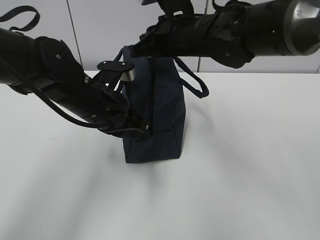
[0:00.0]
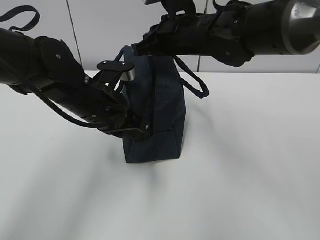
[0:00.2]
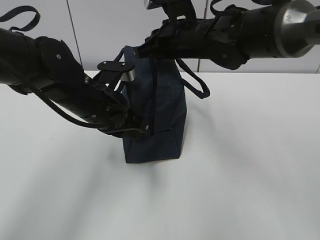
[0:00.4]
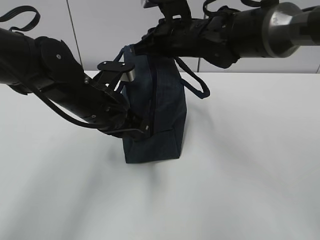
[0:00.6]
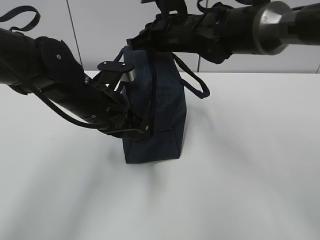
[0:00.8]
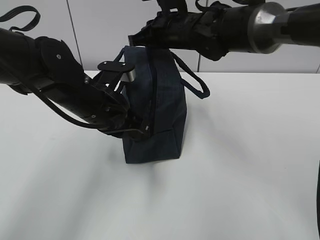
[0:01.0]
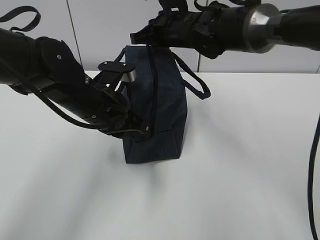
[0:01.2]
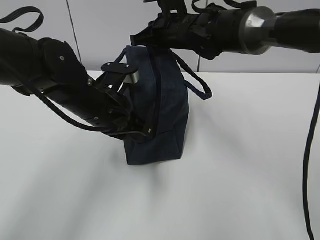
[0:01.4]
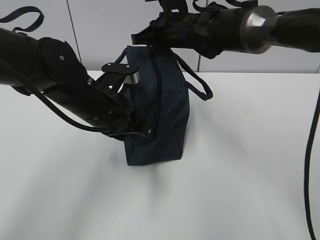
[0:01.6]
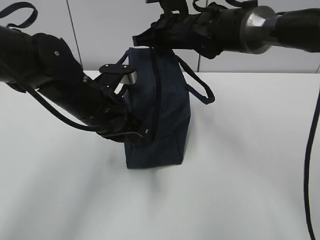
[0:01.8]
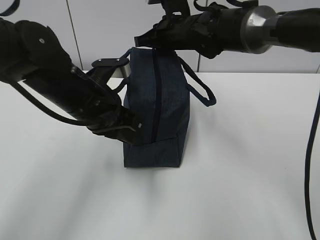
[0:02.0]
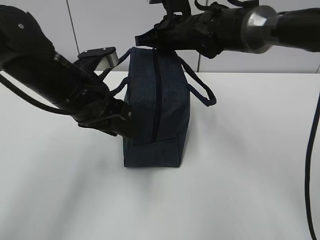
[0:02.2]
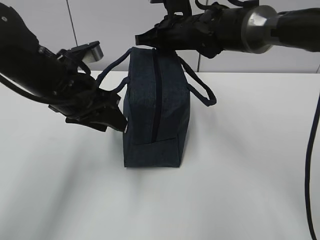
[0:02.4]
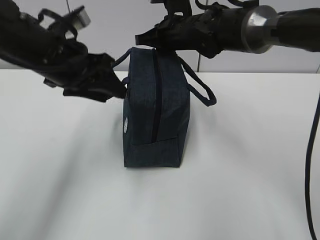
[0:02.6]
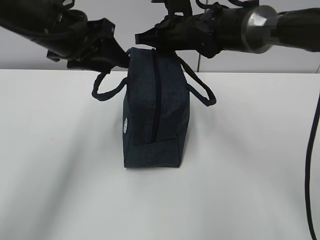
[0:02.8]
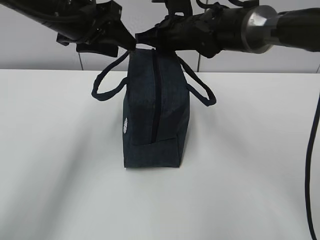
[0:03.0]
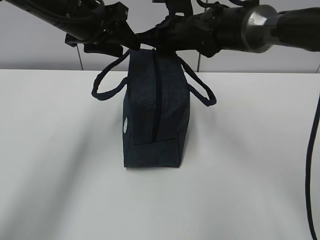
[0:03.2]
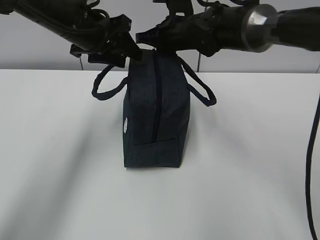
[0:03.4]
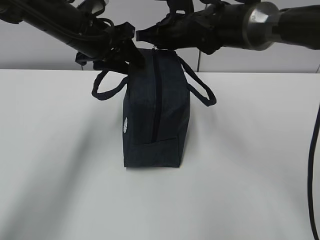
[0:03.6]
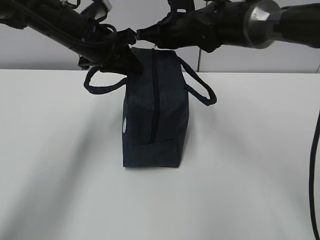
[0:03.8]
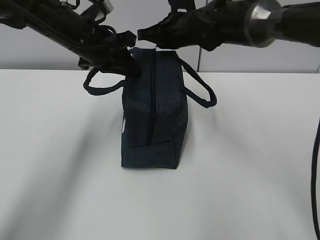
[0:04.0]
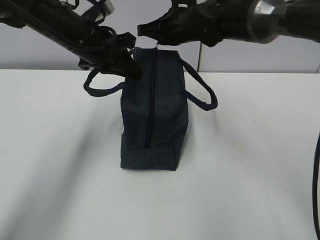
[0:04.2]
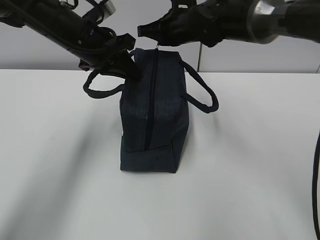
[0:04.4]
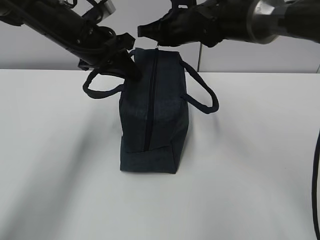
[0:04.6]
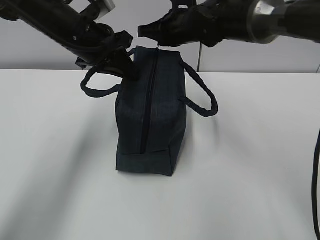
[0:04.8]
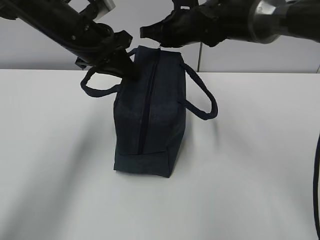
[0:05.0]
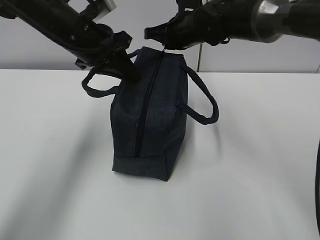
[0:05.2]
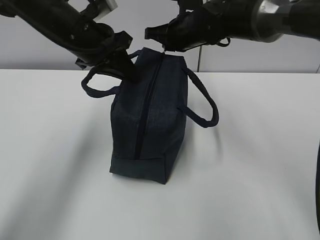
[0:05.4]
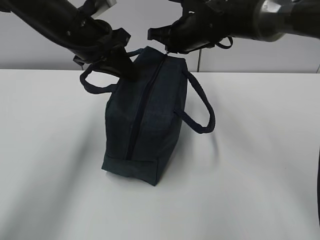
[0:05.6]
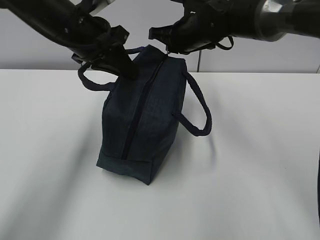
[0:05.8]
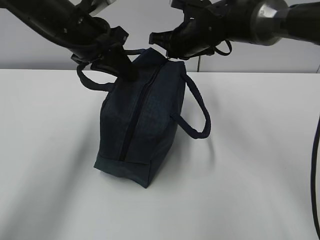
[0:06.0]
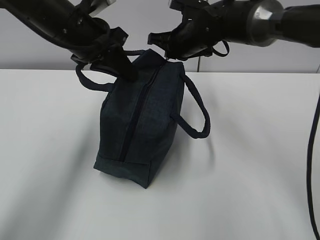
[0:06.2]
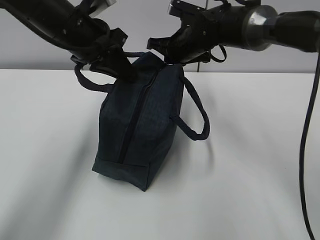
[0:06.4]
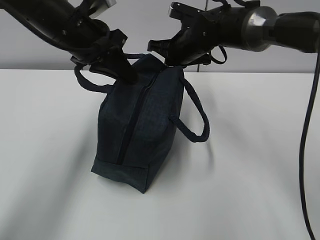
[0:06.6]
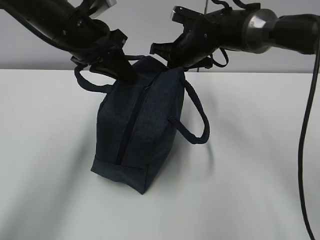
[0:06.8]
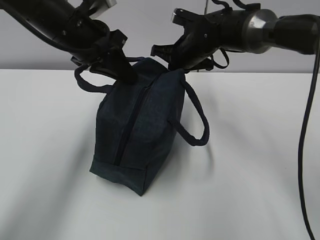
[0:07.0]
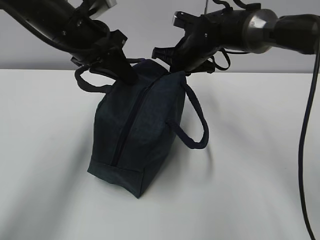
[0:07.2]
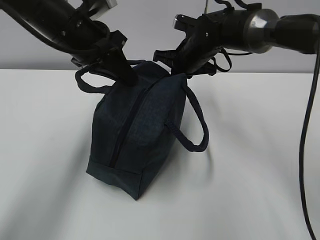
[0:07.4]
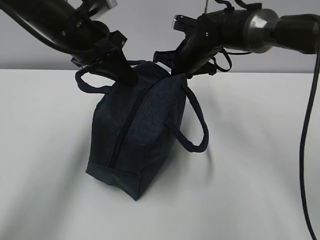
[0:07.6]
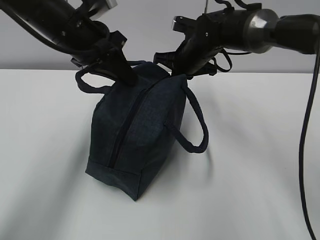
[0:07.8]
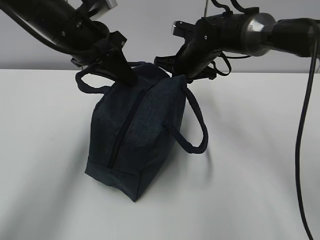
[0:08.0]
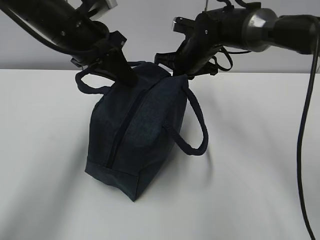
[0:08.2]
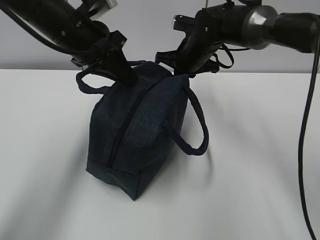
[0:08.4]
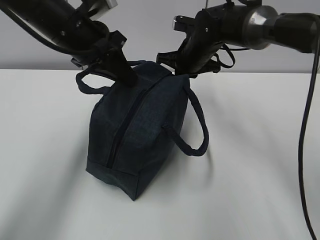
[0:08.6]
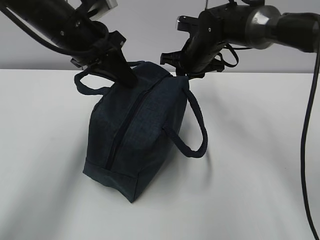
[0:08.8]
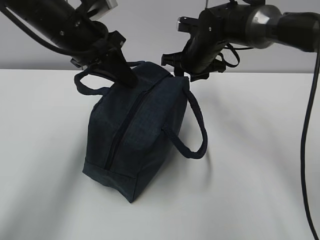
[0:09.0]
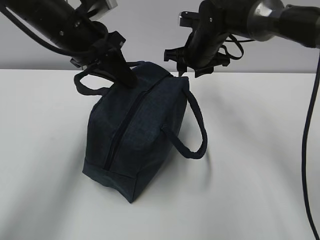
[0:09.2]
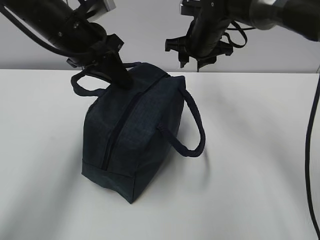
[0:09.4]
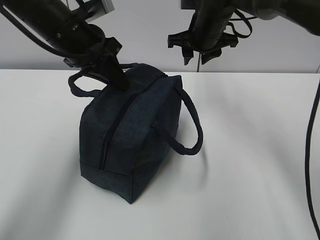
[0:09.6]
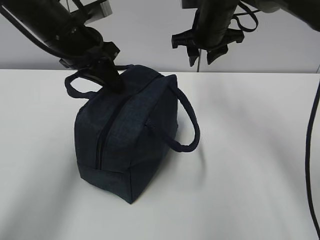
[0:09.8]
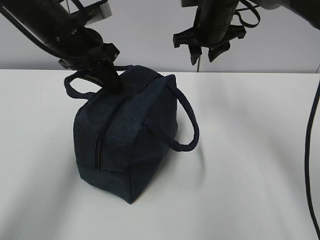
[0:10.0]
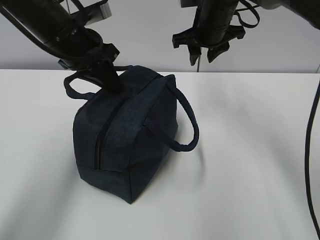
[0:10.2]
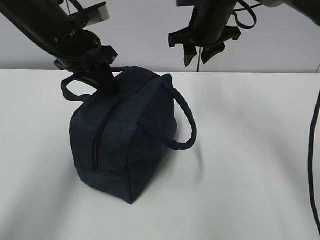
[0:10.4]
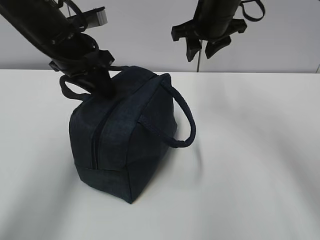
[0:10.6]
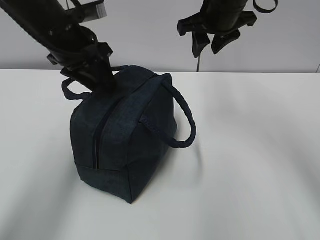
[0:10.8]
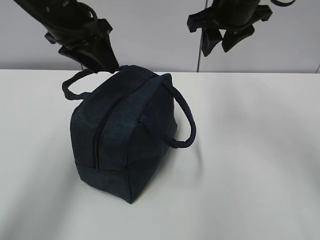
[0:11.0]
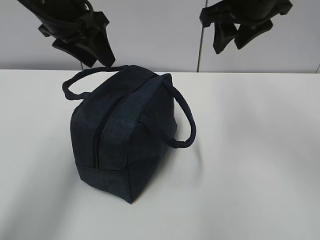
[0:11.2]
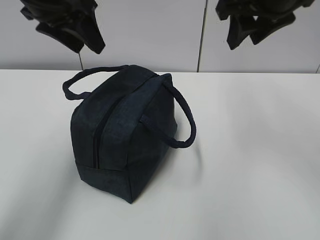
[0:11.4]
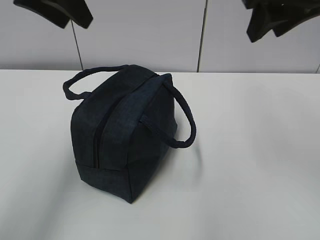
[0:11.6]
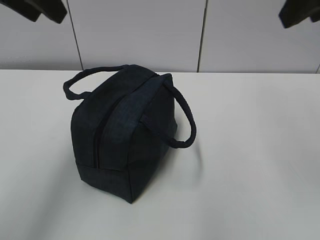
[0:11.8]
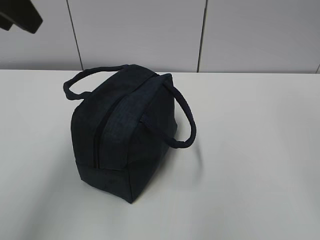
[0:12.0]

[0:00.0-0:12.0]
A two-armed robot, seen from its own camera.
0:00.0 to 0:01.6: The right gripper heads forward, covering roughly 10 cm.
0:01.6 to 0:03.0: The left gripper is displaced upward, forward and to the left by approximately 15 cm, and opens its fingers.
0:03.0 to 0:04.4: The left gripper is displaced downward by roughly 5 cm, and closes.
0:04.4 to 0:06.0: The grippers move only a little.
0:06.0 to 0:07.6: The grippers make only small movements.
0:07.6 to 0:09.0: The right gripper opens its fingers.
0:09.0 to 0:10.4: The right gripper goes about 10 cm upward.
0:10.4 to 0:12.0: The left gripper heads upward, backward and to the left, covering about 20 cm, and opens, while the right gripper travels backward and upward by approximately 35 cm.

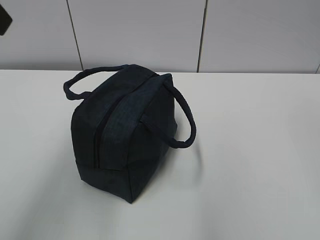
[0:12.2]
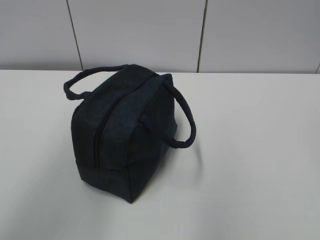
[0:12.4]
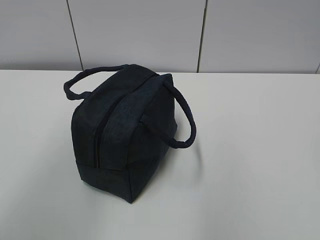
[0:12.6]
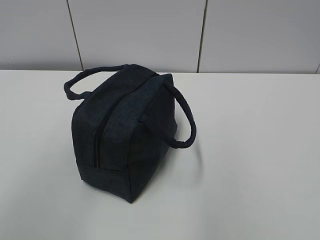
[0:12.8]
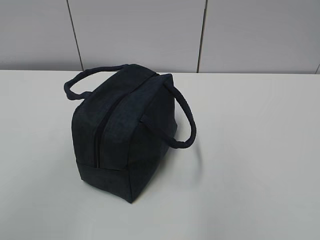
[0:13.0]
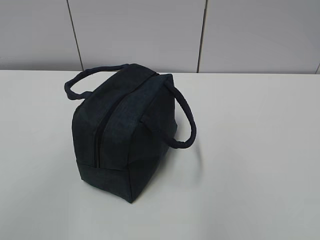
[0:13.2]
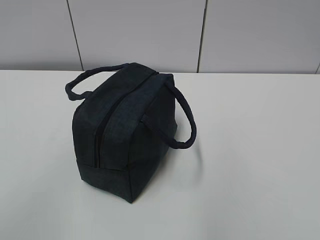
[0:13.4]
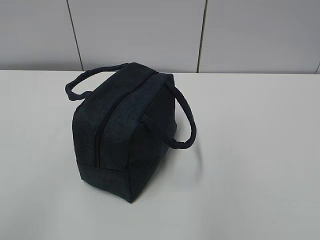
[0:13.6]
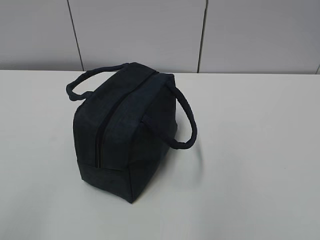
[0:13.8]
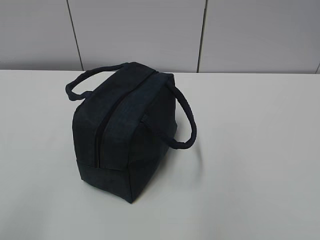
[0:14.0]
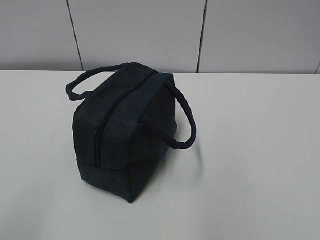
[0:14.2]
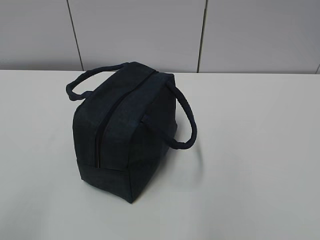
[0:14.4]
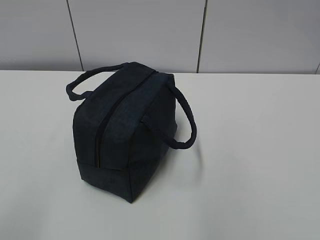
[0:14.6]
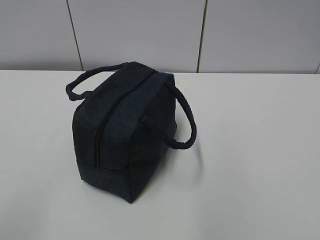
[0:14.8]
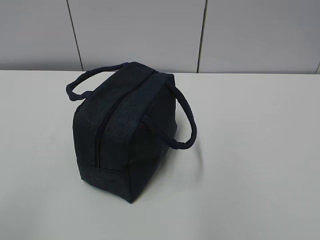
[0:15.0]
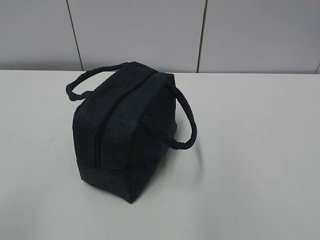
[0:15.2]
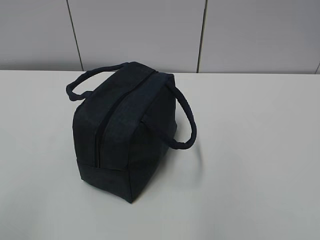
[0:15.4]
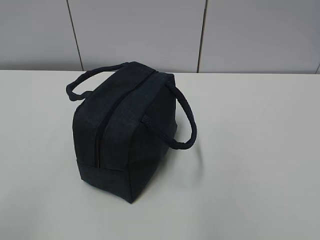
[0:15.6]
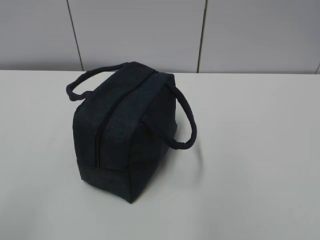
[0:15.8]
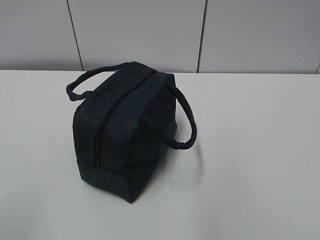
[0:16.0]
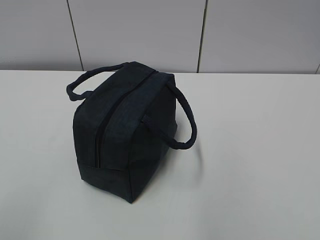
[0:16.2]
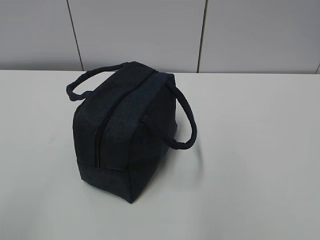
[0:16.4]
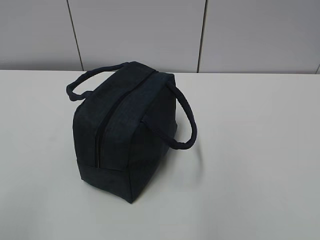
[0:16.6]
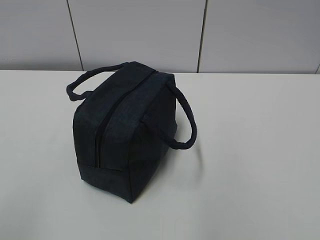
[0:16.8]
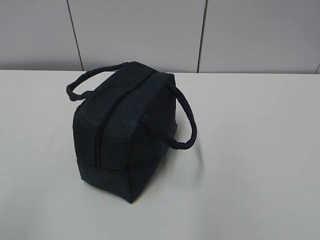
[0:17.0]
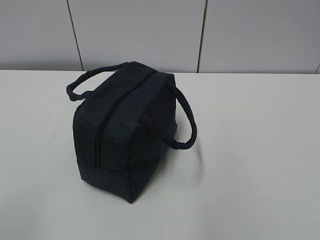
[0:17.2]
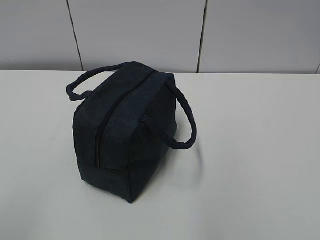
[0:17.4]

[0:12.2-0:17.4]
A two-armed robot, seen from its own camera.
0:12.2 to 0:14.0: The right gripper moves downward and backward, some 20 cm. Meanwhile the left gripper shifts roughly 30 cm backward and downward.
0:15.6 to 0:17.4: Neither gripper changes place.
